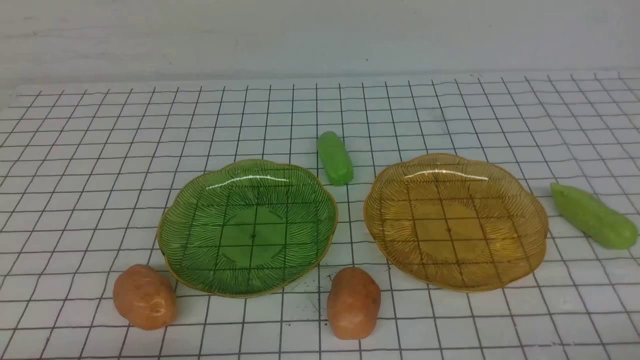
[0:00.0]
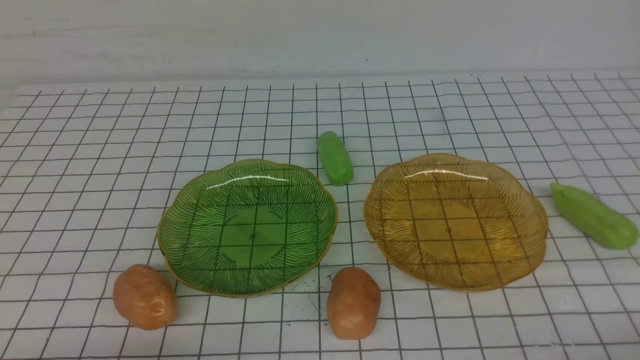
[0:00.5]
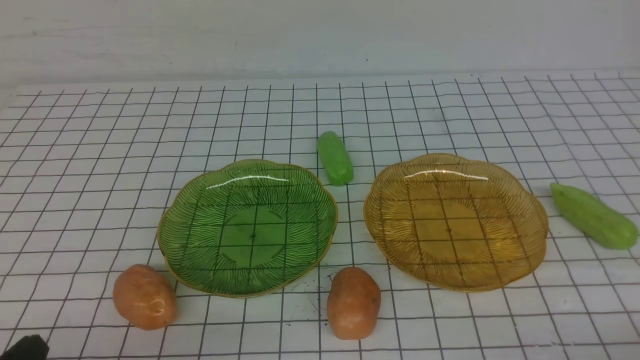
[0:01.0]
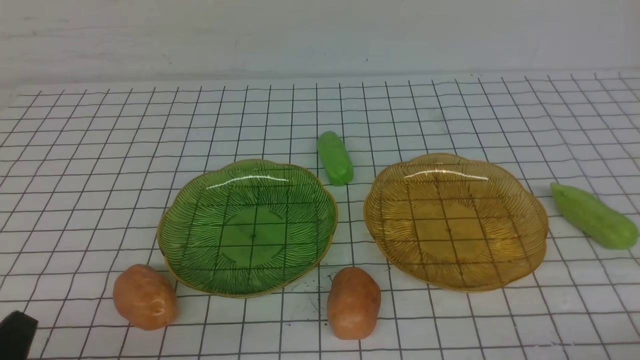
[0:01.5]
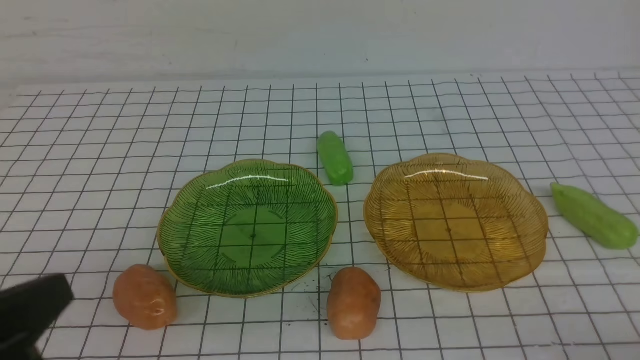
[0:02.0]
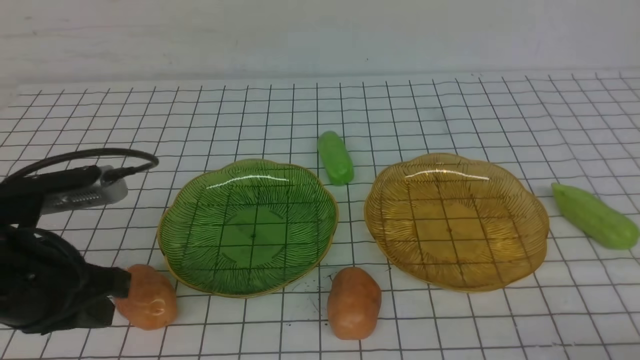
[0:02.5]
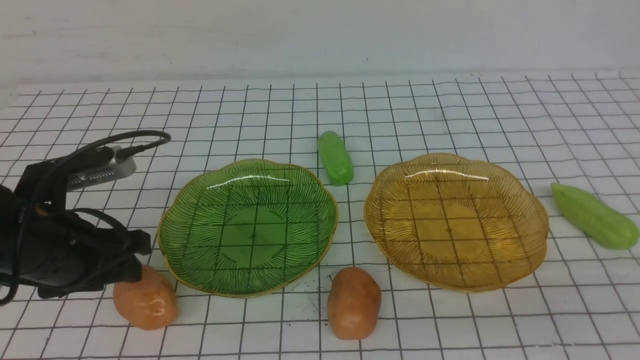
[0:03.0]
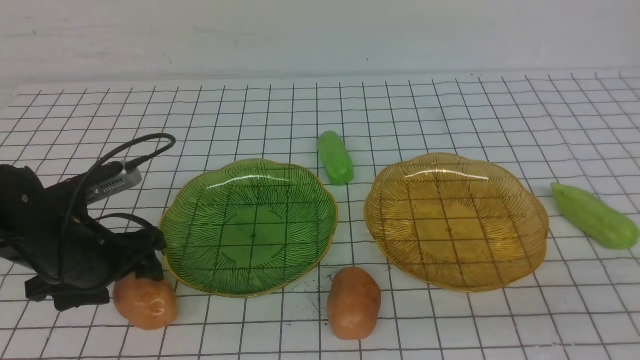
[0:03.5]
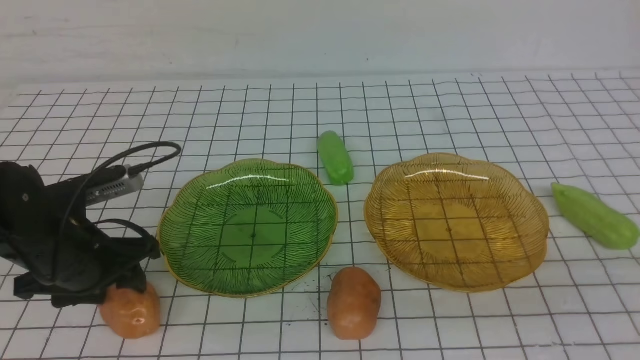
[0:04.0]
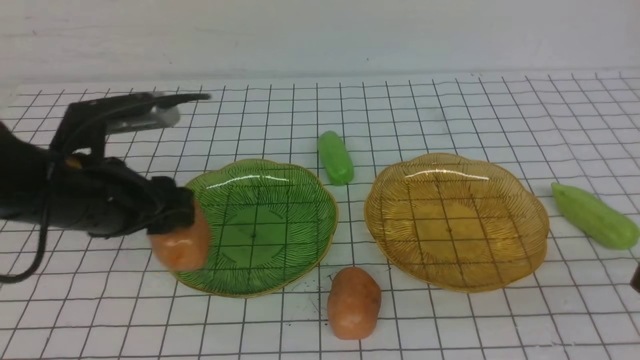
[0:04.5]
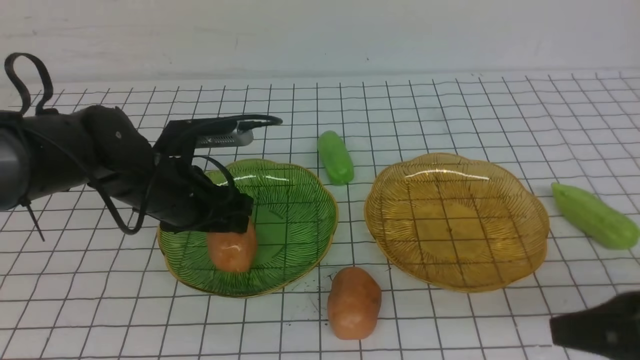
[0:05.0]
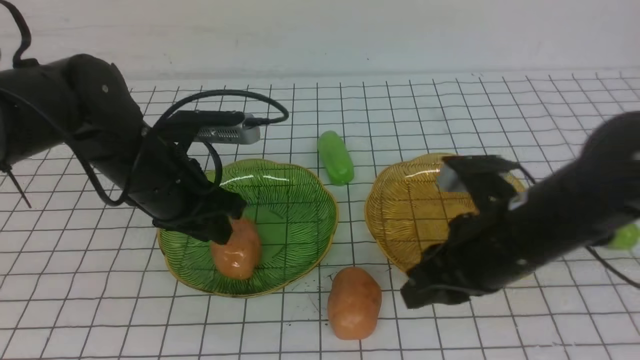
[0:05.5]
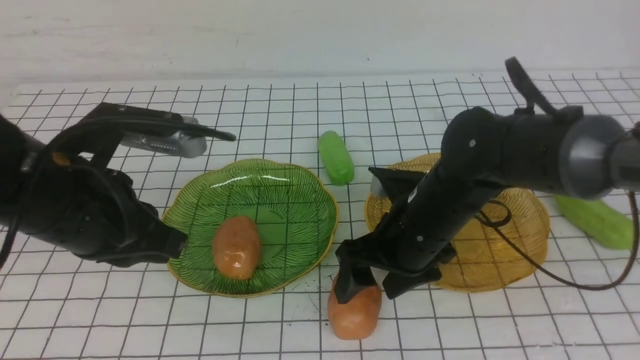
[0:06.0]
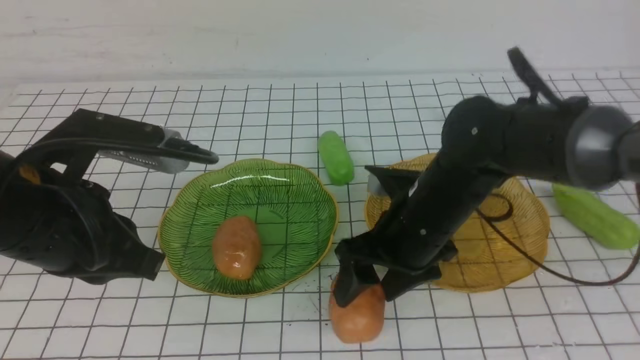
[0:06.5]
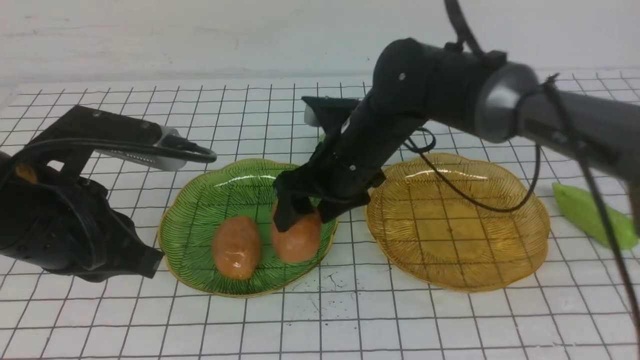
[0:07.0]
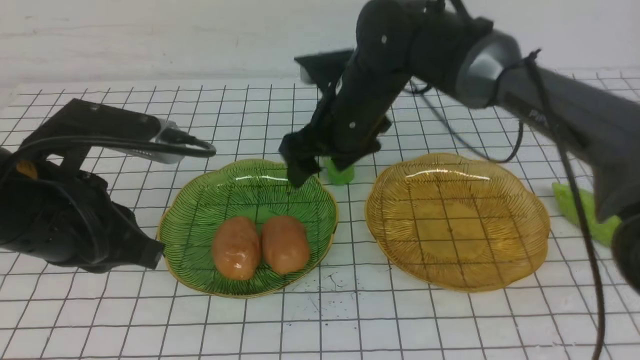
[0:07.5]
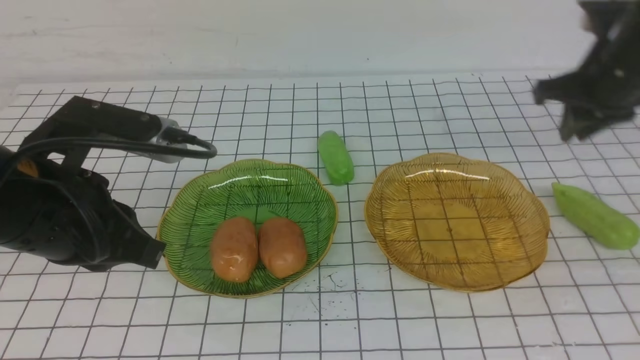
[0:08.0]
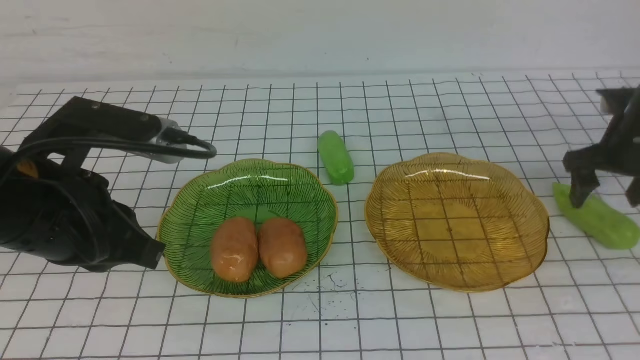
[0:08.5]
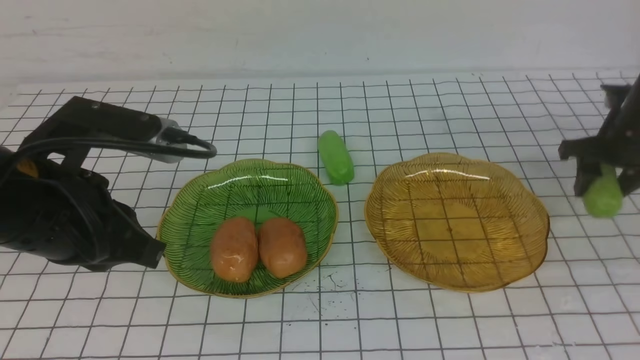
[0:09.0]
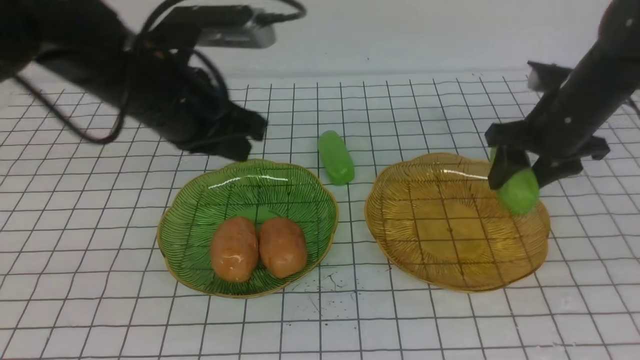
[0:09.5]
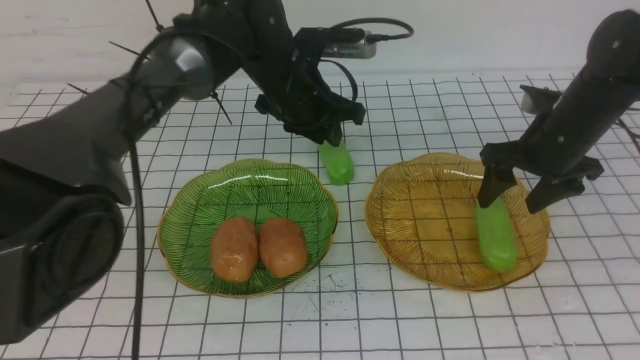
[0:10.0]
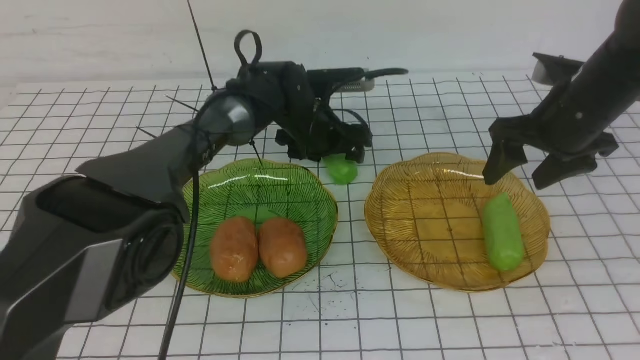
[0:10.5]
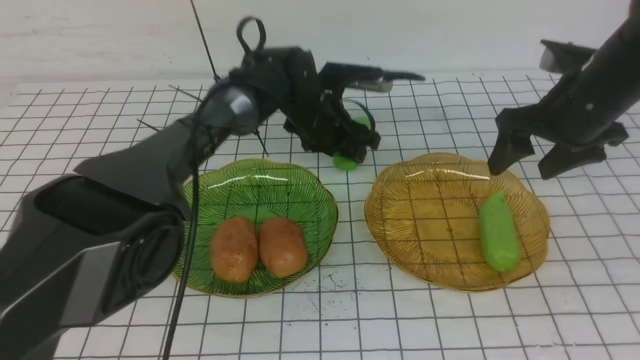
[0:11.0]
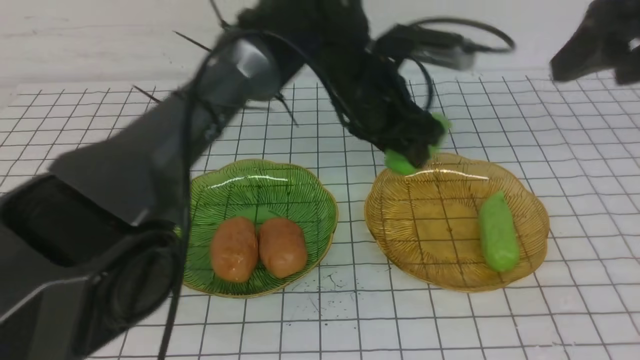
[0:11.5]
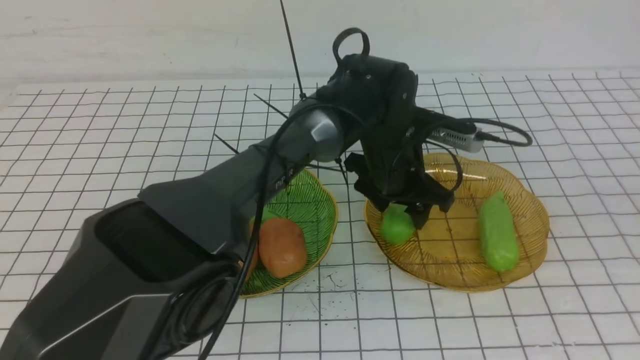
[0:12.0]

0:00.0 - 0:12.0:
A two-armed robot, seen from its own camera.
Step, 0:00.0 - 0:05.5: Grab a potato with your left arm and put it on the left plate.
Step, 0:06.0 - 0:07.0: Grab a potato with your right arm and put it on the left plate.
Step, 0:07.5 - 0:09.5: use the right arm to grab a chayote and put it into the right plate.
0:00.0 - 0:02.0: The left gripper moves upward, roughly 15 cm.
0:02.0 - 0:04.0: The left gripper goes roughly 20 cm forward and downward, and opens. Meanwhile the right gripper shifts some 10 cm upward.
0:04.0 - 0:06.0: The right gripper travels forward, to the left and downward by roughly 30 cm, and opens its fingers; the left gripper shifts about 10 cm upward and to the right, reaches approximately 5 cm forward, then returns, and closes up.
0:06.0 - 0:08.0: The right gripper shifts about 25 cm to the right, forward and upward, and closes.
0:08.0 - 0:10.0: The right gripper is displaced downward by some 5 cm, moves some 5 cm to the right and comes back, and opens; the left gripper moves forward and to the right, about 30 cm, and opens its fingers.
0:10.0 - 0:12.0: The left gripper goes roughly 15 cm to the right and backward, and opens up, while the right gripper moves backward and upward, about 40 cm, and closes its fingers.

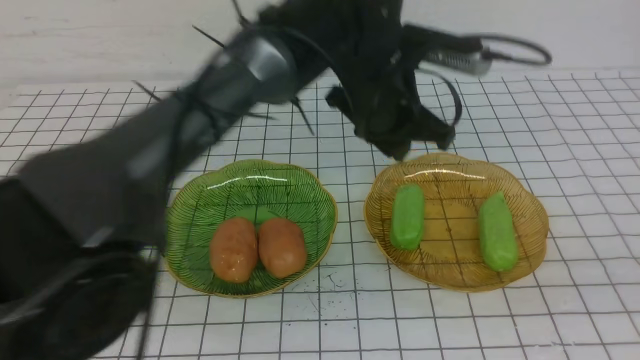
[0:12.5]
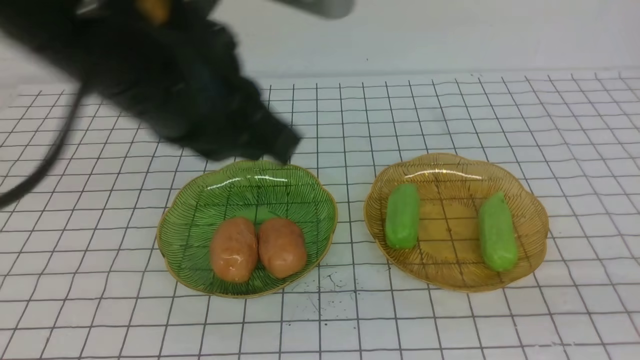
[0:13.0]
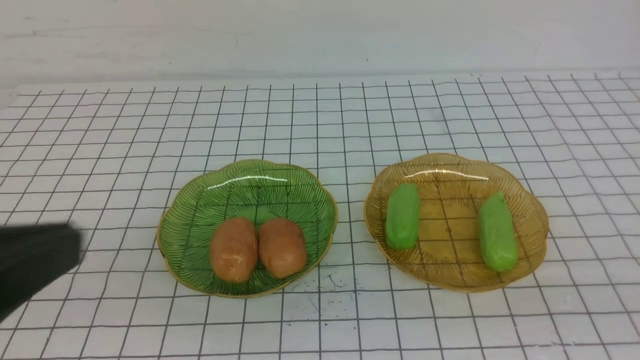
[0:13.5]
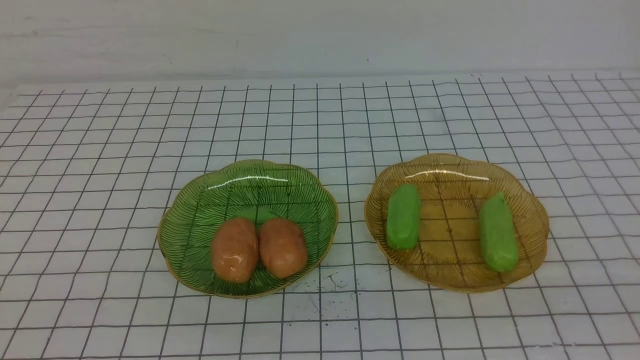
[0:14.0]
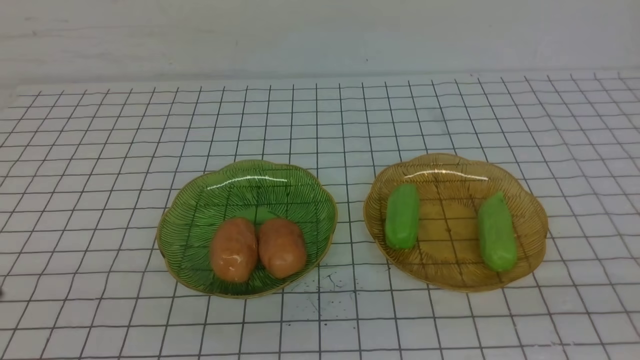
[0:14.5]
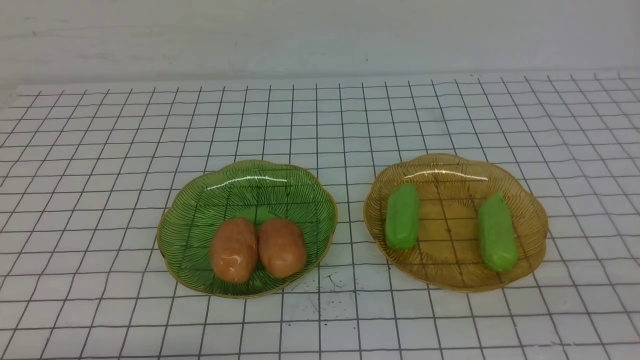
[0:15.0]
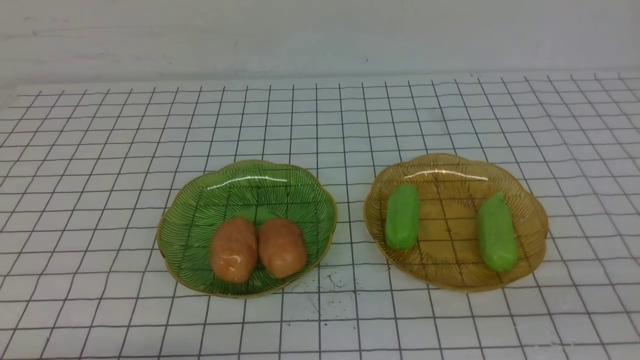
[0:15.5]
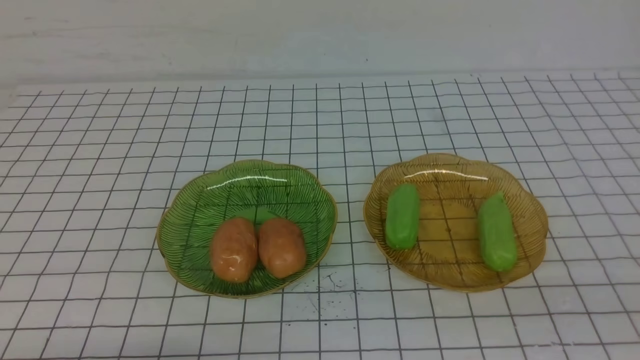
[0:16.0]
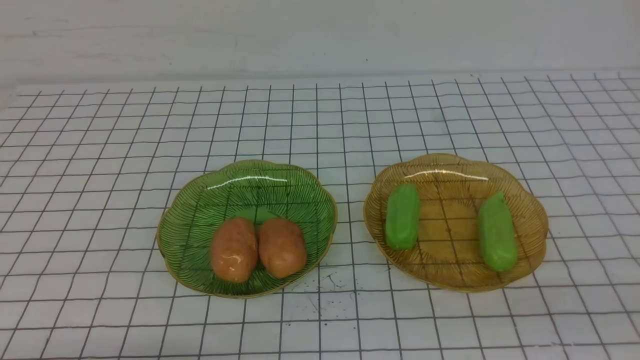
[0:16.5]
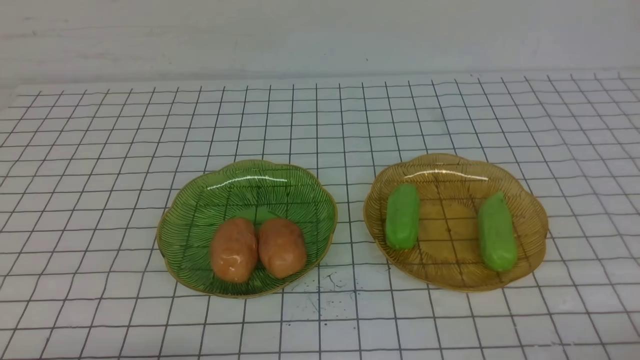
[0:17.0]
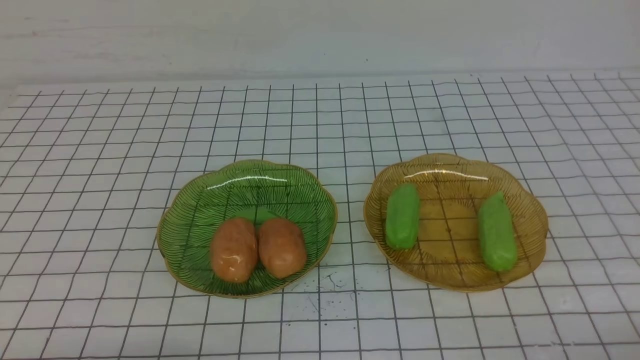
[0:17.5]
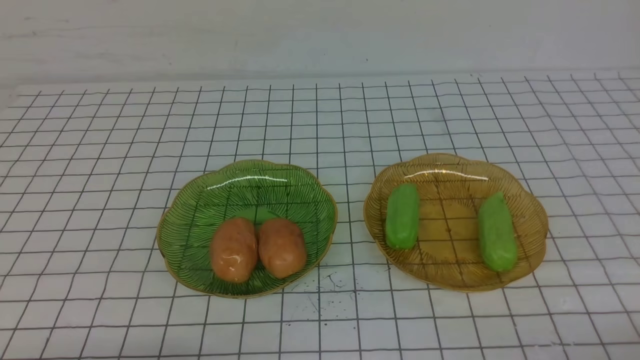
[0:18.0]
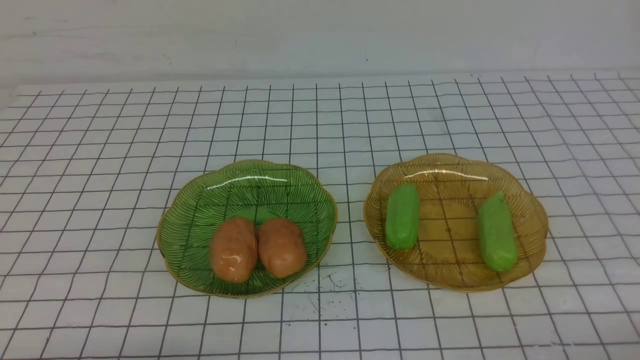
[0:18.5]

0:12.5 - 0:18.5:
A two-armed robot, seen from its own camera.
0:12.5 - 0:14.5: The left gripper heads backward and to the left, covering roughly 40 cm.
